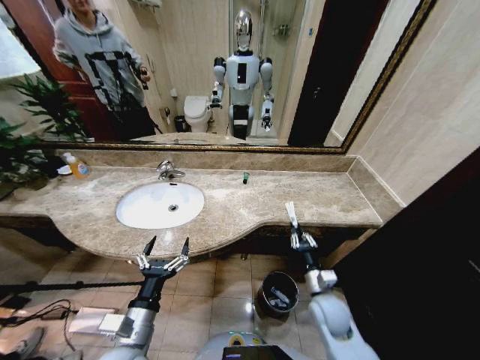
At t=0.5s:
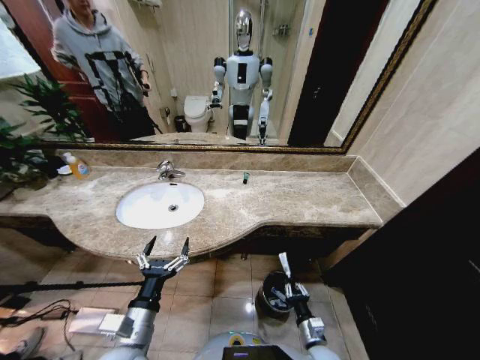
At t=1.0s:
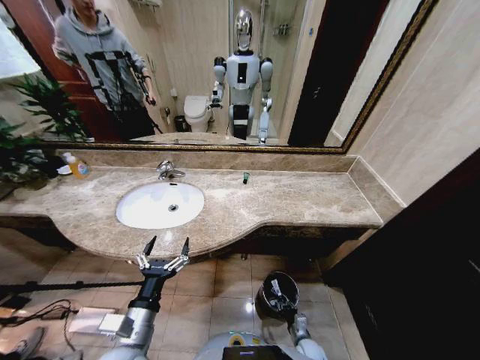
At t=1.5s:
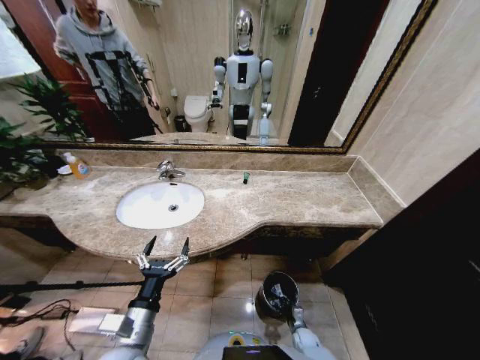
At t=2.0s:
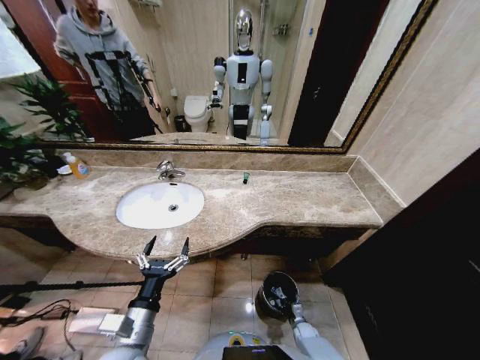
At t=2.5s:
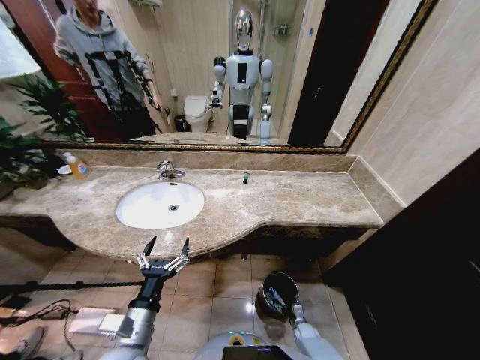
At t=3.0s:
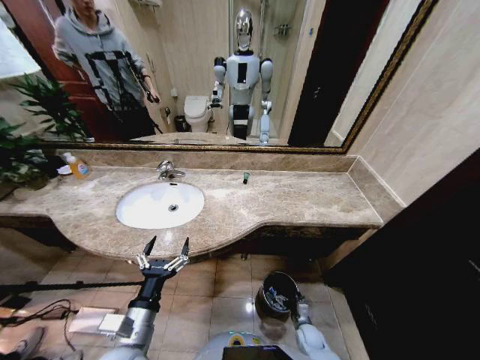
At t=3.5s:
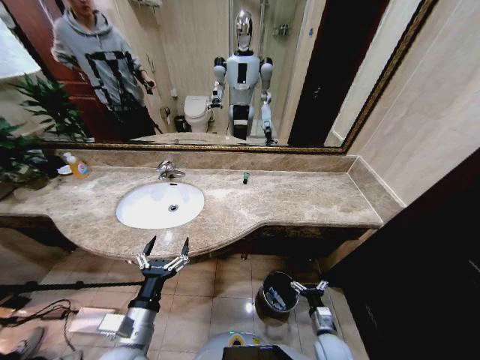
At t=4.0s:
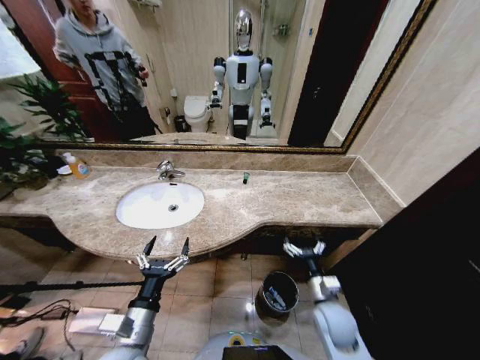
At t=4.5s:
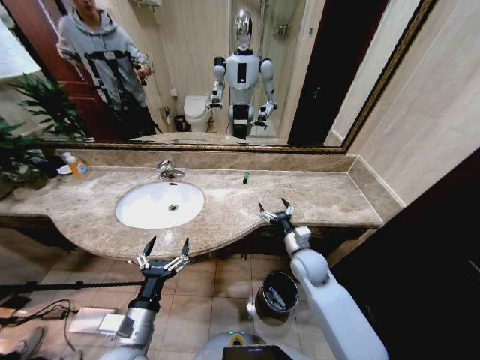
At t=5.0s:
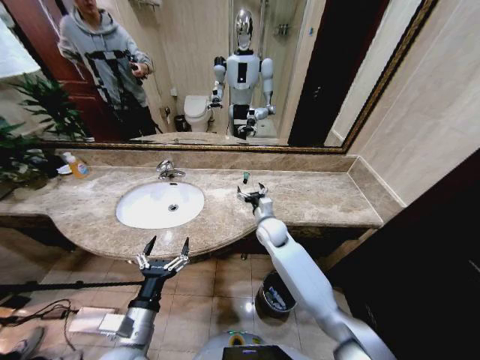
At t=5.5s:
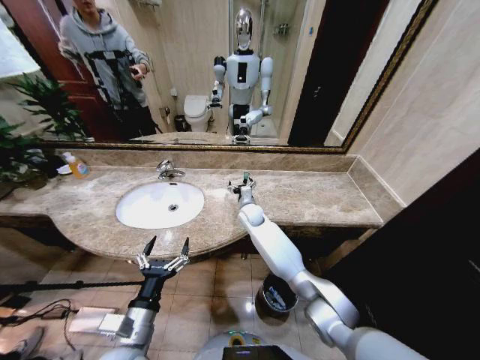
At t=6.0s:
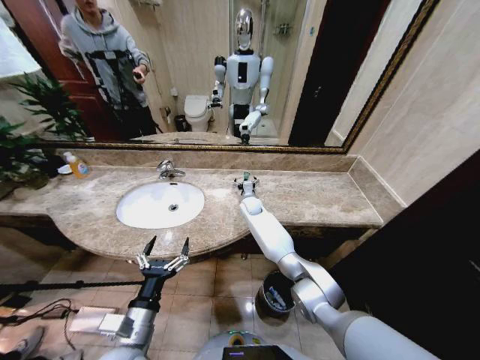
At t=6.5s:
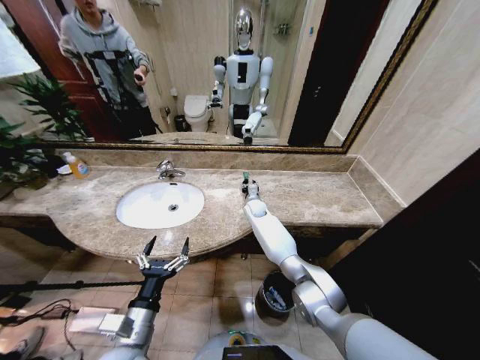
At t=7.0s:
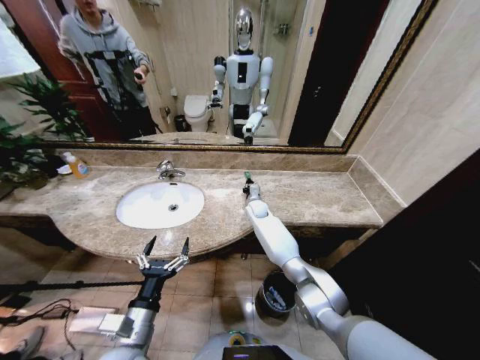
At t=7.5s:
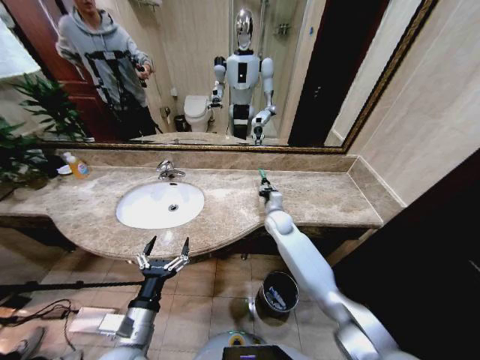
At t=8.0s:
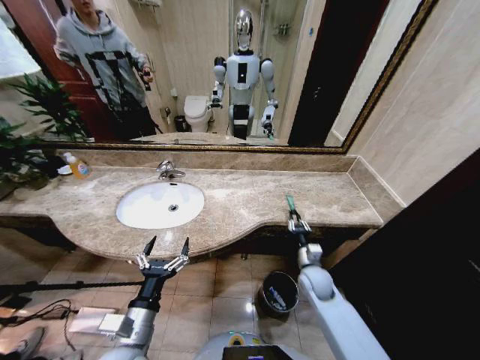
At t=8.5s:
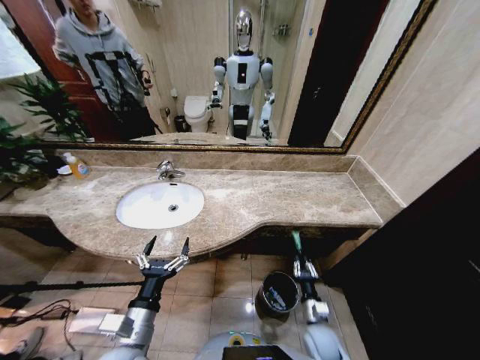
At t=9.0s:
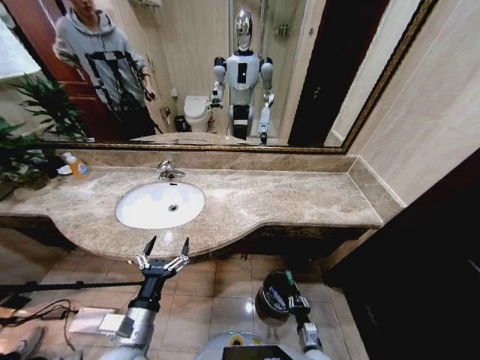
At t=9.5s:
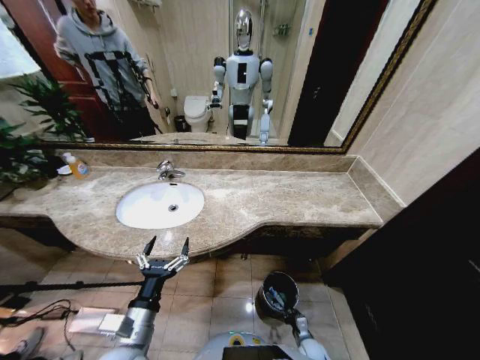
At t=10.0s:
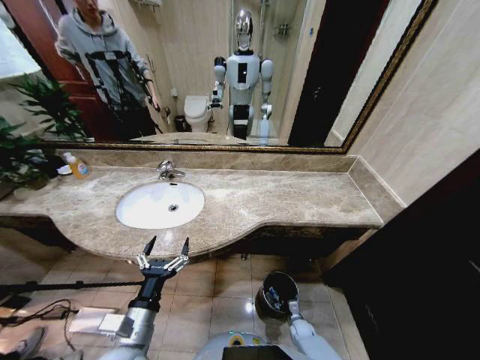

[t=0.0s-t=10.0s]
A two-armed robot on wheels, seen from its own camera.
Task of the whole recording: Pick up the trash from the sink and place it in the trash bin.
t=0.0s to t=2.0s: The right gripper shifts about 35 cm downward.
t=2.0s to t=4.0s: The right gripper travels upward by approximately 35 cm, and opens up.
t=4.0s to t=6.0s: The right gripper goes about 40 cm forward and to the left.
t=6.0s to t=8.0s: The right gripper goes approximately 35 cm backward and to the right, and closes.
t=8.0s to t=10.0s: The right gripper moves downward, roughly 30 cm.

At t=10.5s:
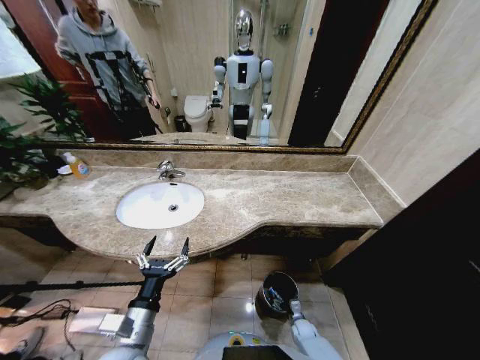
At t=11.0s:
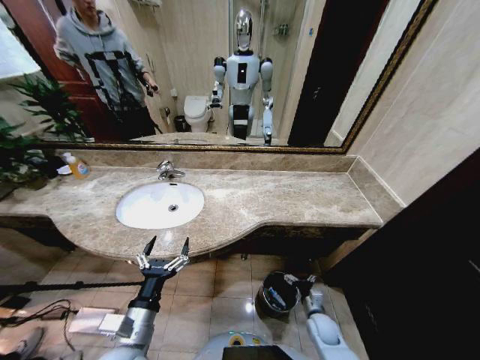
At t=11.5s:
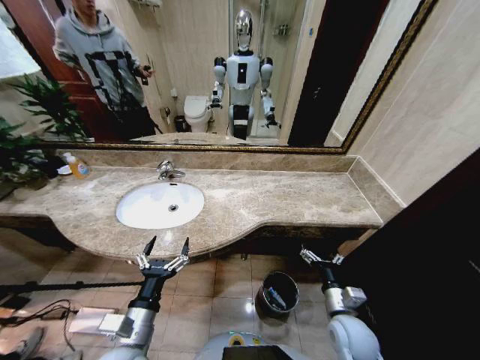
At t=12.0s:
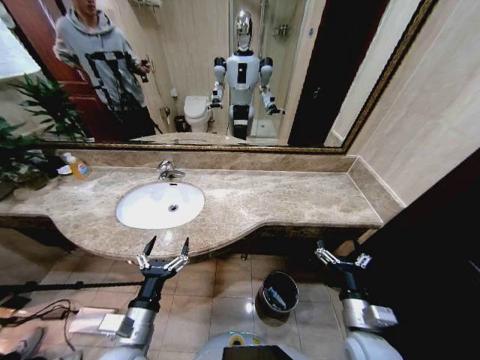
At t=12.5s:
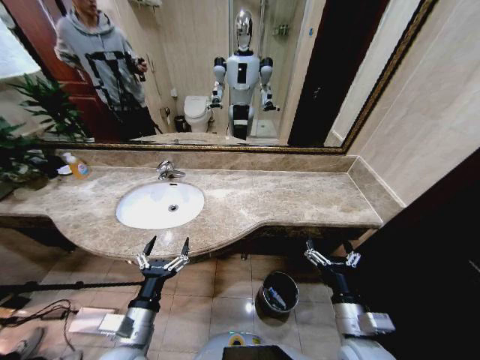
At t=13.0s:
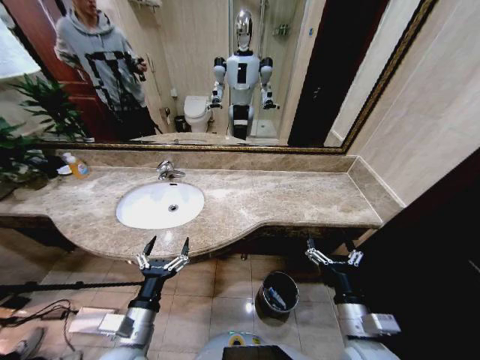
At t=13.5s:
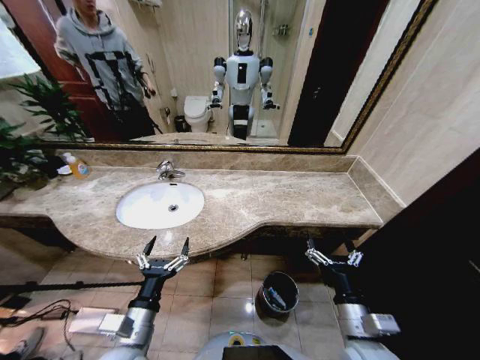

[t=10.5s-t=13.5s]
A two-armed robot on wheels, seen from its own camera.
Task of the whole recording: Pick up the trash from the sink and place it in the trash bin.
t=10.5s to t=12.0s: The right gripper goes some 35 cm upward.
t=12.0s to t=13.5s: There are only small adjustments of the grippers.
